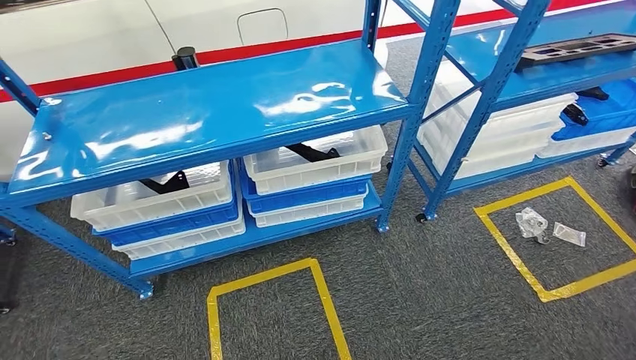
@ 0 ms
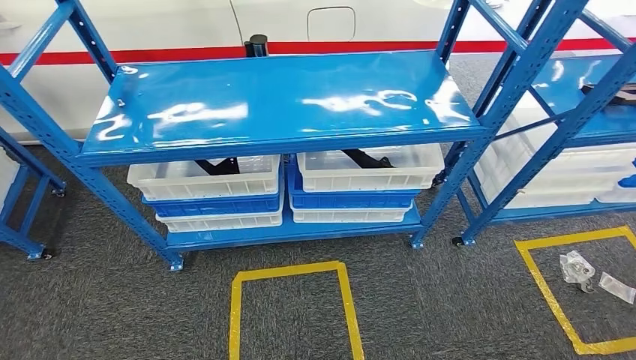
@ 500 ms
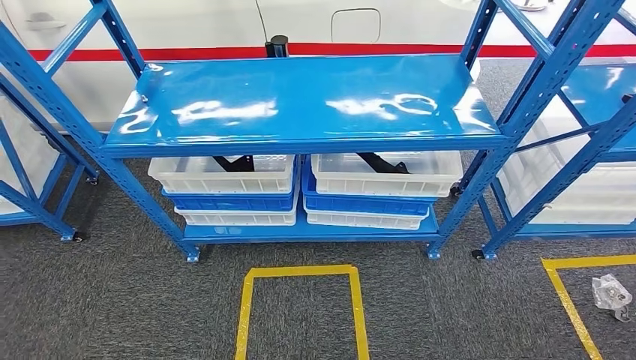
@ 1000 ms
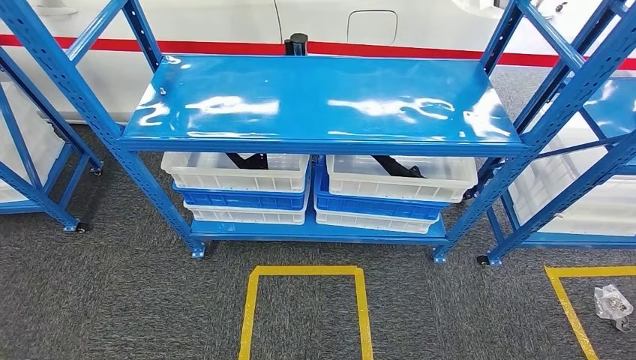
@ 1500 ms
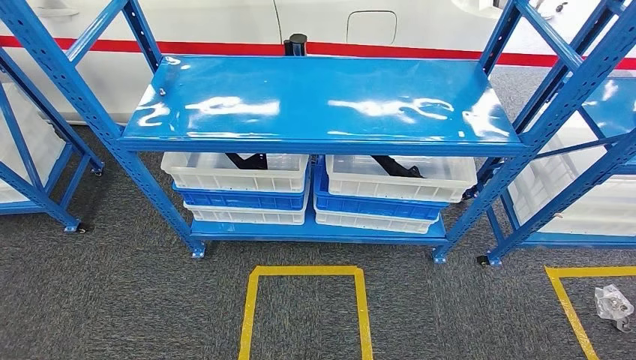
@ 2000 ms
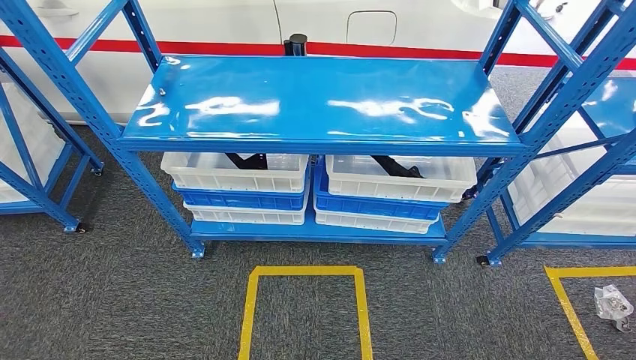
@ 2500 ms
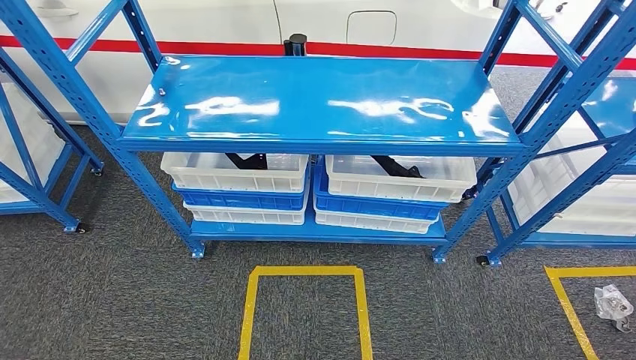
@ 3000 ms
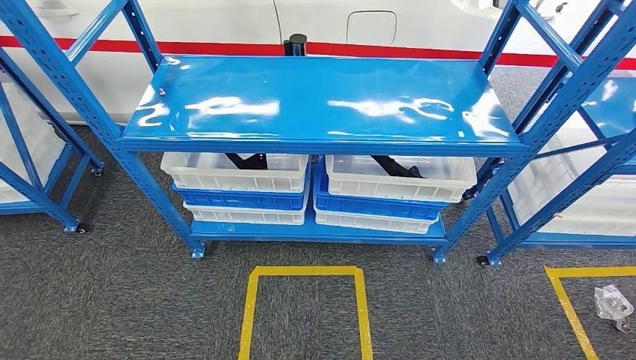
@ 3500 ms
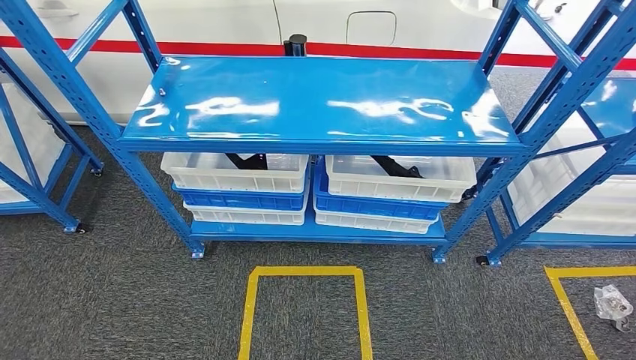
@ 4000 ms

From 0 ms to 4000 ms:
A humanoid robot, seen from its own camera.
Step, from 0 ms to 3500 ms: Move to the initial position of the shelf.
